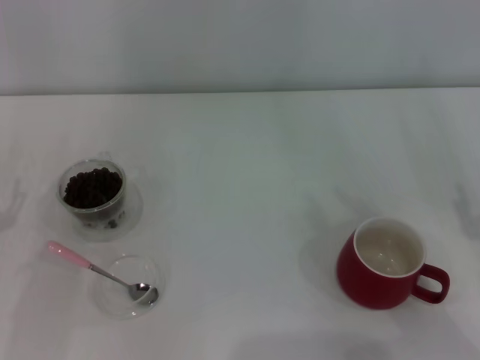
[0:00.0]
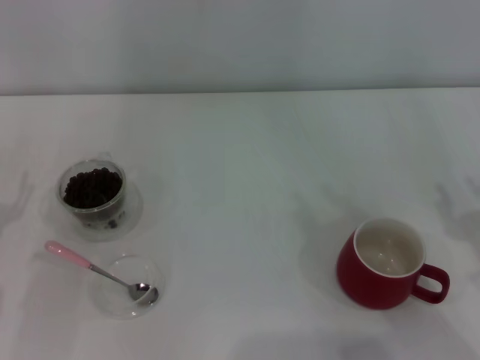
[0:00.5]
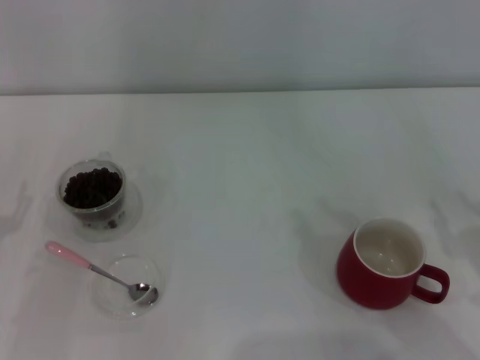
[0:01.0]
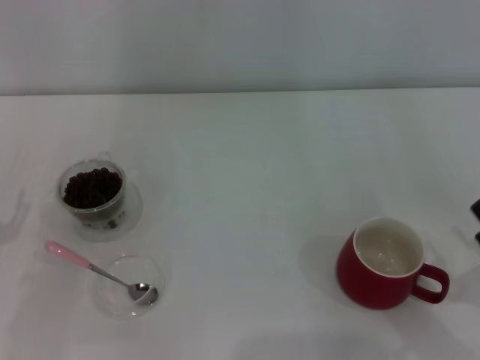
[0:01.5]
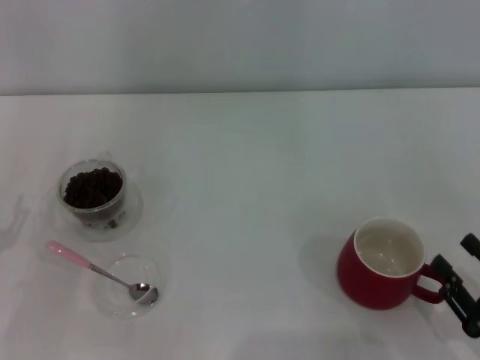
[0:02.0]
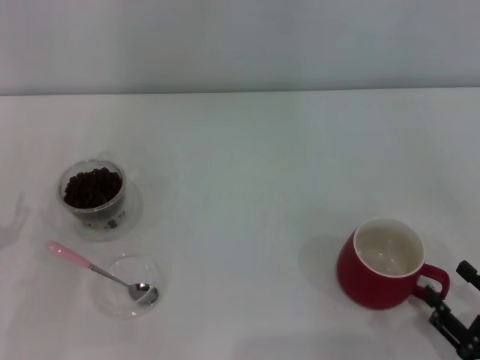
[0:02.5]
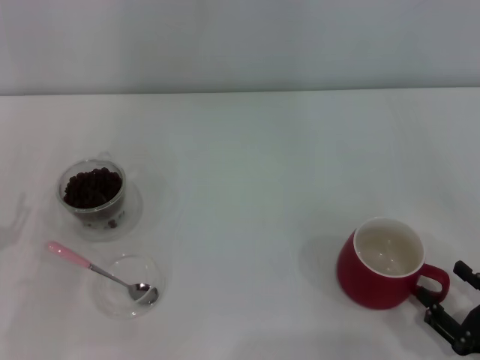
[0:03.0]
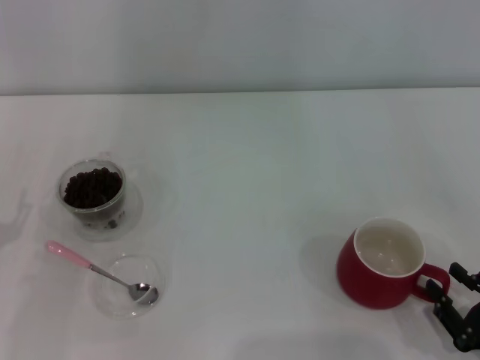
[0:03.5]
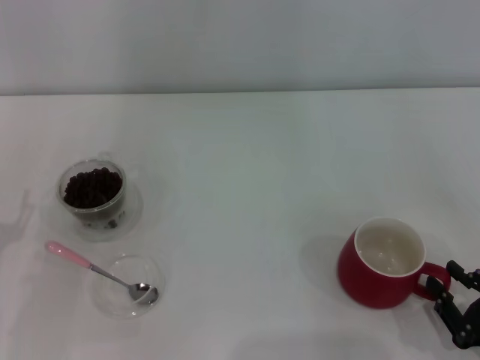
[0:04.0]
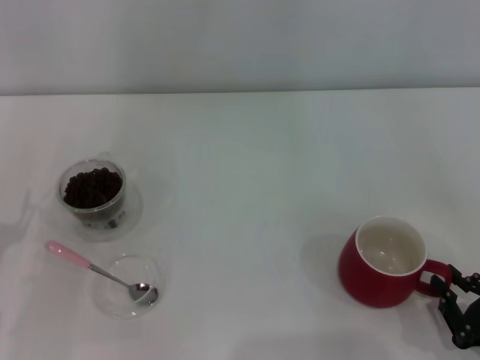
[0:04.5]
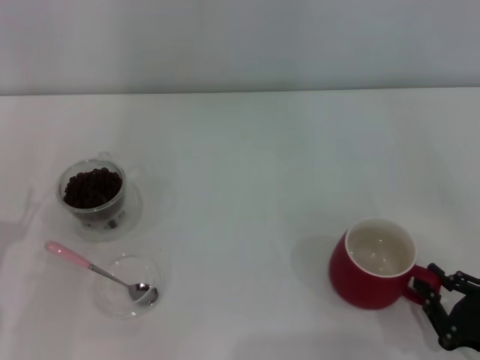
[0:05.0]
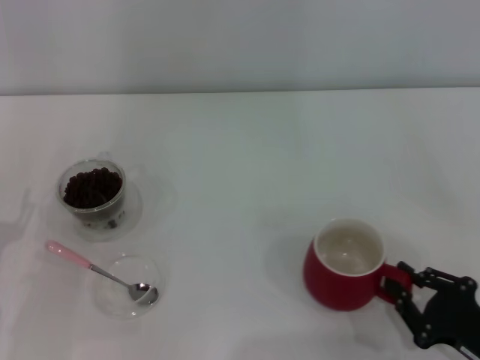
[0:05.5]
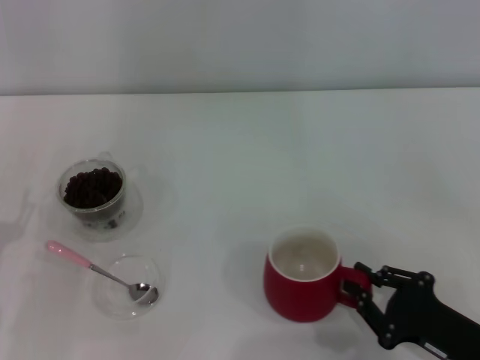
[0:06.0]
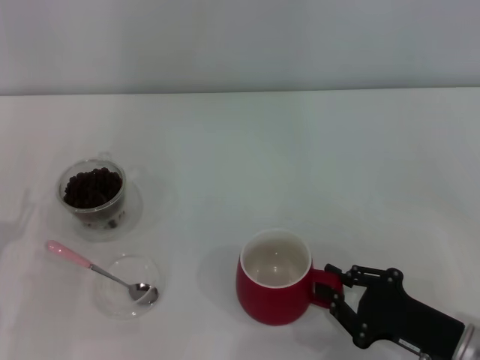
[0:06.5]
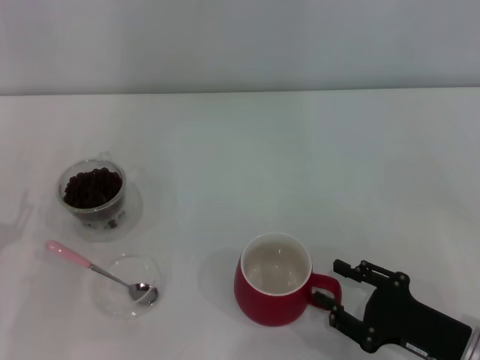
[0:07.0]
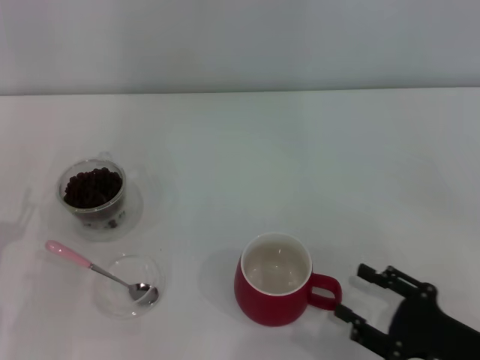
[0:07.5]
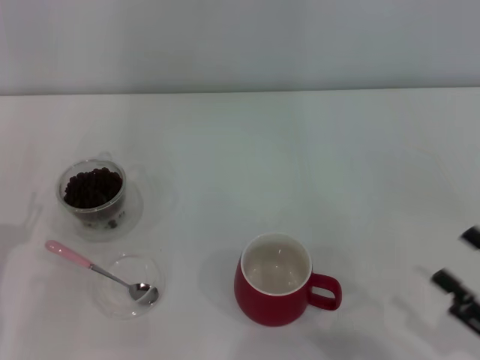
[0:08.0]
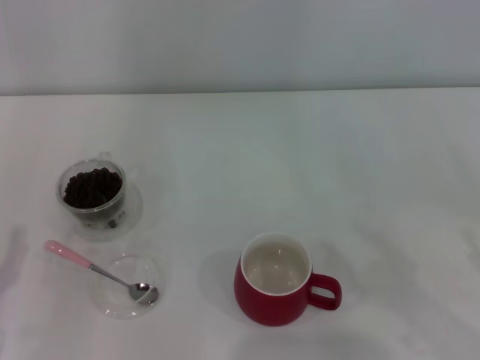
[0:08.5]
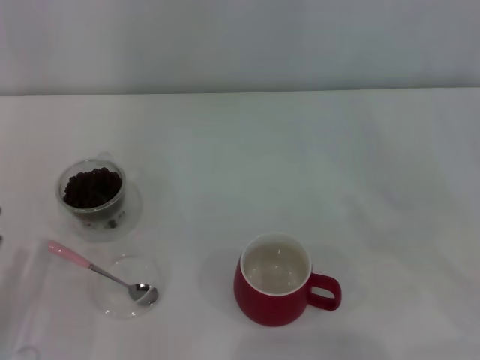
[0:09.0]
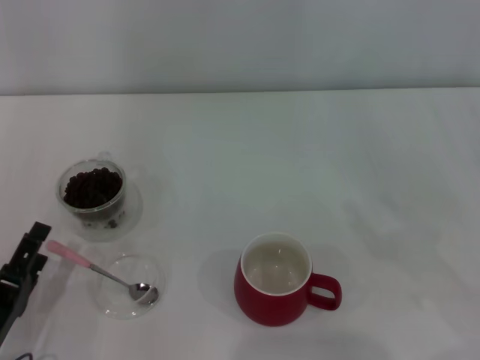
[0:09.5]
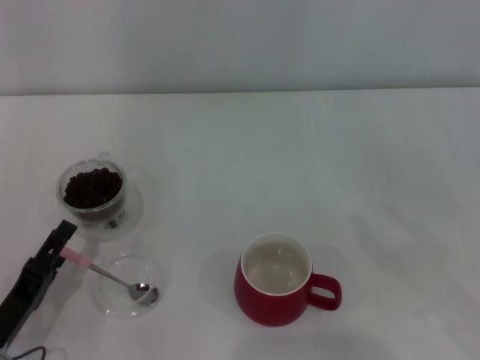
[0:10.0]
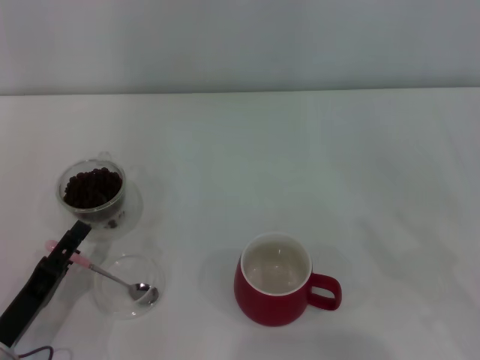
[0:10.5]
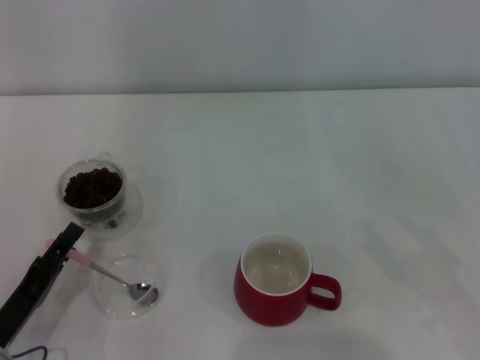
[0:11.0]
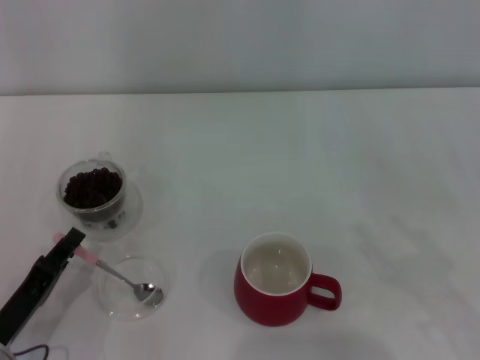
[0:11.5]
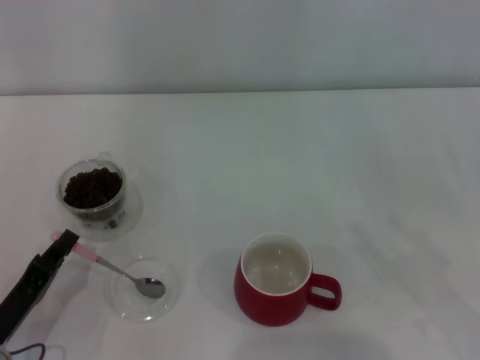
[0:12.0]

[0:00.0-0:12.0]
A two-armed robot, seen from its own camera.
Task of the whole recording: Use a pink spoon to take out the coffee beans from the glass and pour them into the red cup.
Step, 0:00.0 to 0:07.5: Move the cup to the center of view with the left gripper.
0:00.0 to 0:02.0: The right gripper travels backward and downward by approximately 10 cm.
0:02.0 to 0:04.0: The right gripper closes up.
0:04.0 to 0:06.0: The right gripper changes place by some 5 cm.
0:06.0 to 0:08.0: The right gripper heads to the right, covering roughly 5 cm, and opens up.
0:08.0 to 0:10.0: The left gripper travels downward by approximately 5 cm, while the right gripper goes some 5 cm to the right.
0:10.0 to 0:12.0: The left gripper closes its fingers.

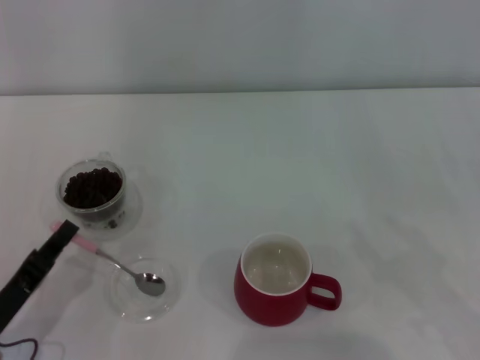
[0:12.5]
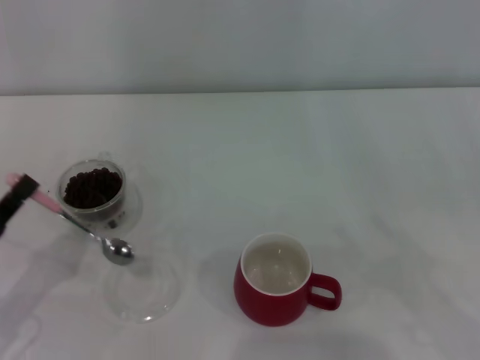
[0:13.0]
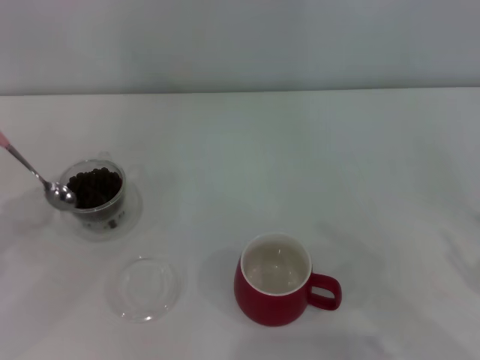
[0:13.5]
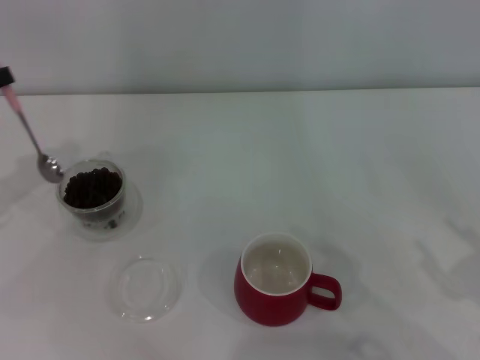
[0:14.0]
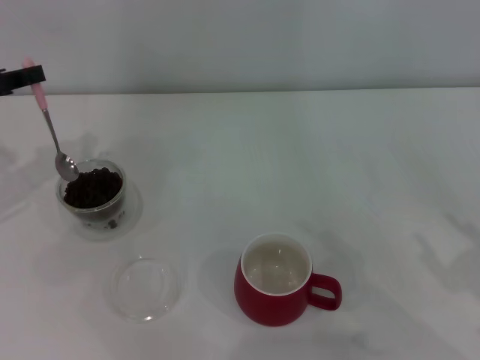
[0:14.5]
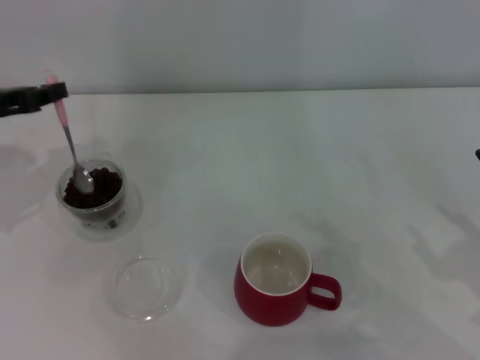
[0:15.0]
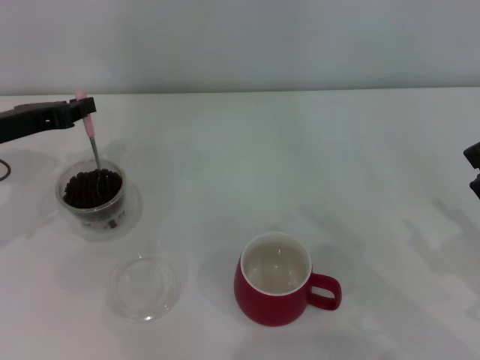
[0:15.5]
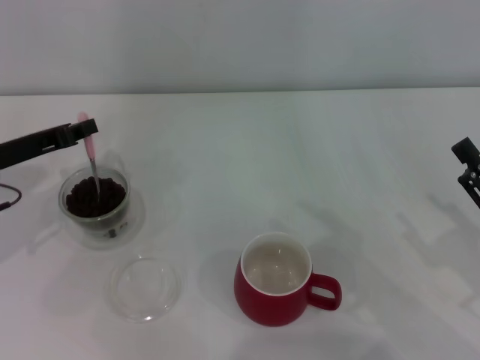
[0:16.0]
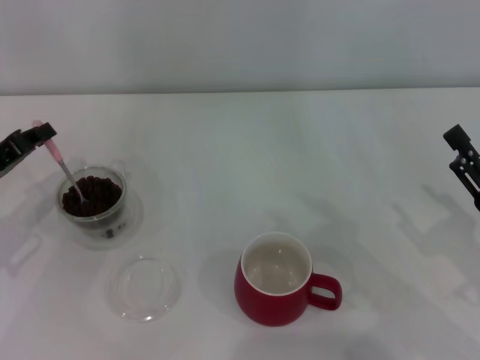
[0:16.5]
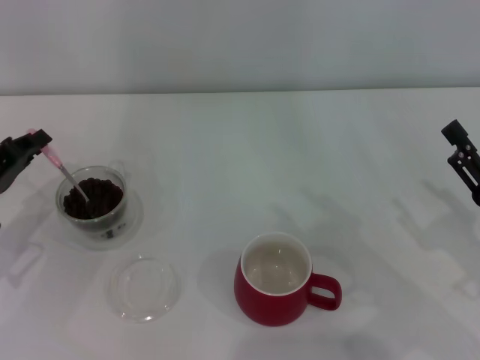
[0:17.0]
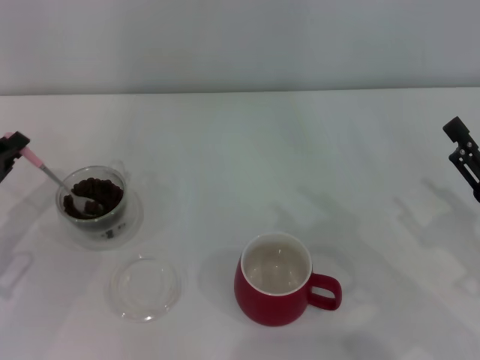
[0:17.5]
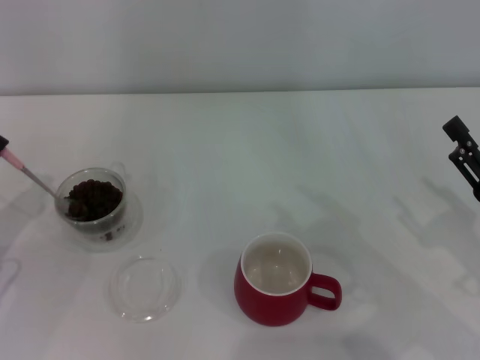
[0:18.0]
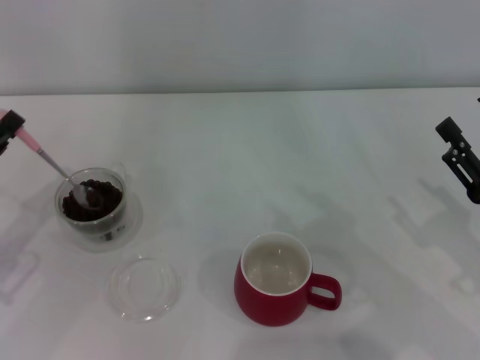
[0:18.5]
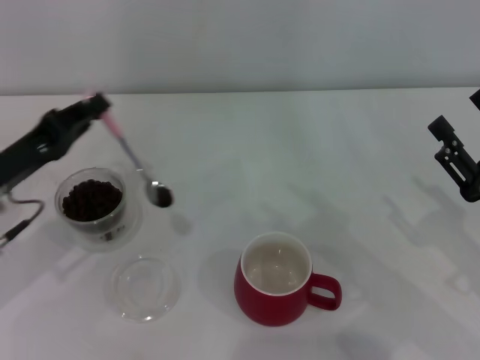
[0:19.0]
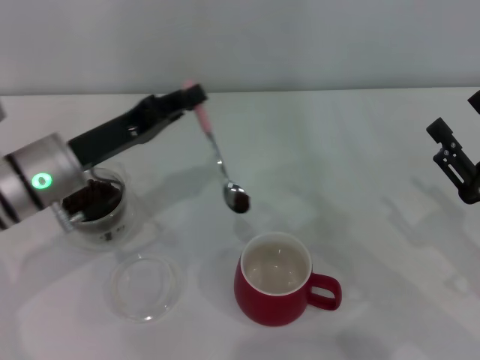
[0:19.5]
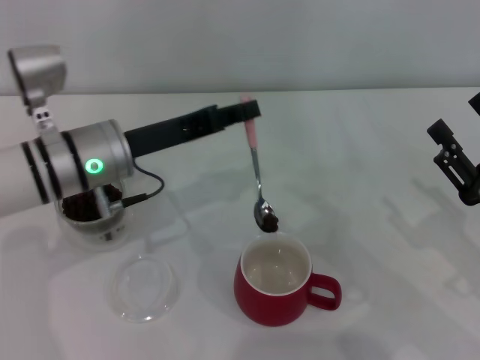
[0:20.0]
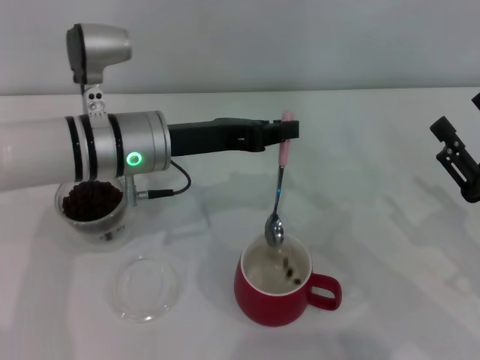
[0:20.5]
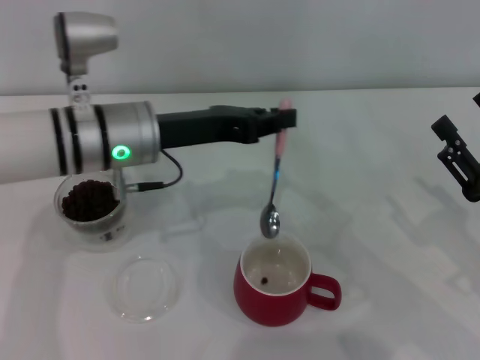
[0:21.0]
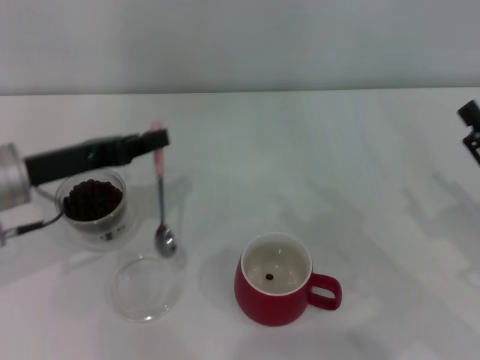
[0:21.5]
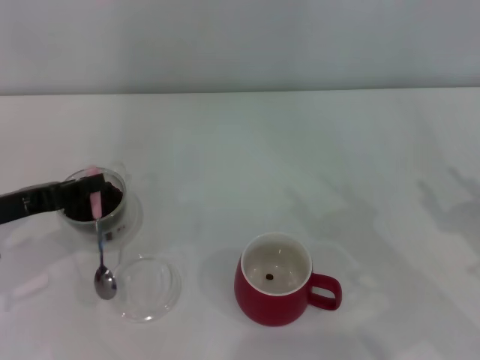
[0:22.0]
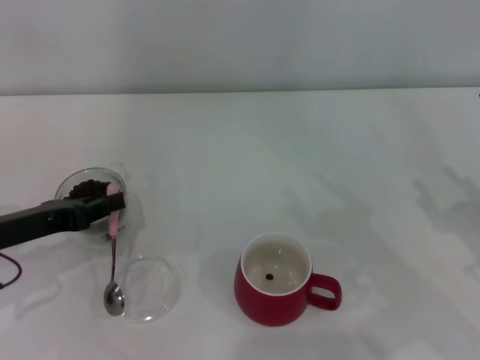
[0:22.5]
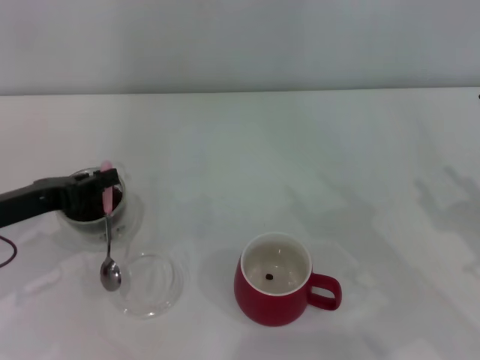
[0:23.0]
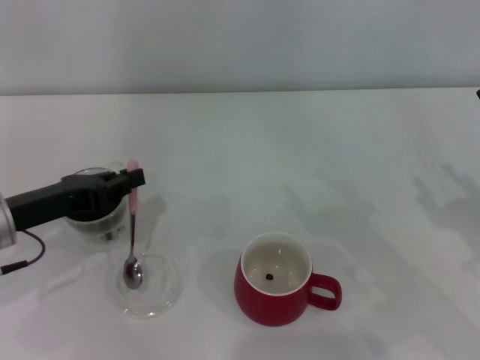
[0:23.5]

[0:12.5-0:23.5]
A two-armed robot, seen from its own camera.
Task of the whole recording: Use a pink spoon to take out the coffee beans from the glass and pour them into the red cup.
0:12.5 to 0:14.5: The left gripper moves forward and upward, roughly 25 cm.
0:14.5 to 0:16.0: The left gripper heads downward and to the right, covering roughly 10 cm.
0:16.0 to 0:18.0: The left gripper goes about 10 cm backward and to the left.
0:18.0 to 0:20.0: The left gripper travels to the right and forward by approximately 20 cm.
0:20.0 to 0:21.5: The left gripper travels to the left by some 10 cm.

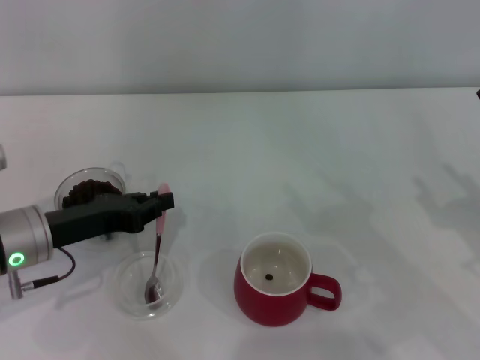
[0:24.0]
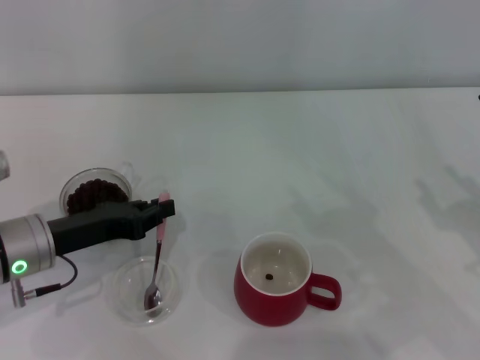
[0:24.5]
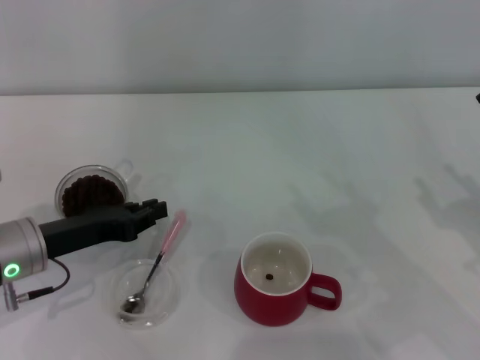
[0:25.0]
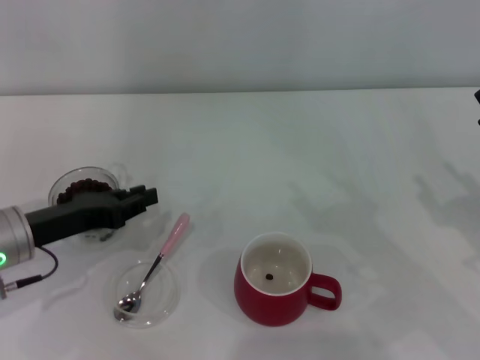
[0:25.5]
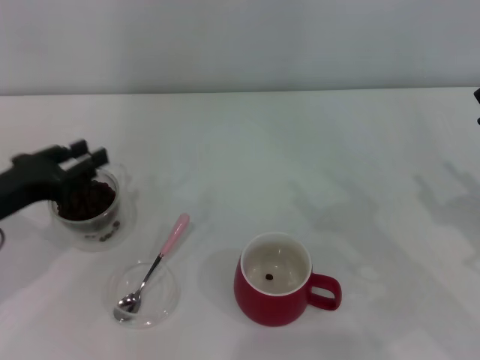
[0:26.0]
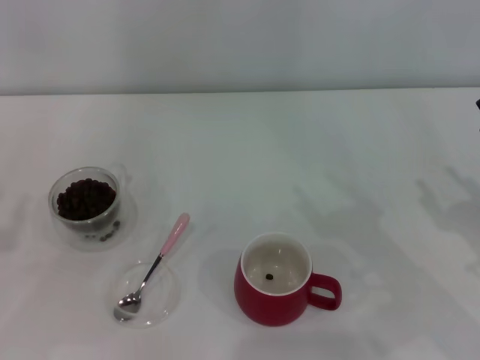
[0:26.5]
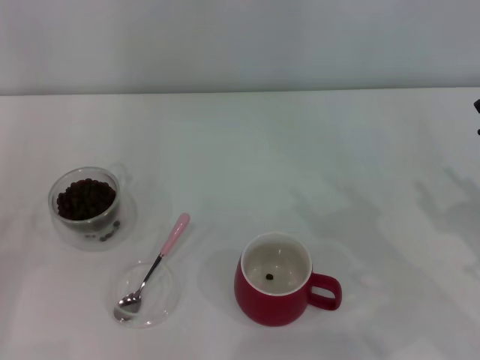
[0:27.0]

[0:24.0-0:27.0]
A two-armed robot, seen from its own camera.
Task of the whole recording: Use a pink spoon to take out the coffee beans from the glass and pour them into the red cup.
0:24.0 to 0:25.5: The grippers make only small movements.
0:25.5 to 0:27.0: The left gripper shifts roughly 20 cm to the left and backward.
